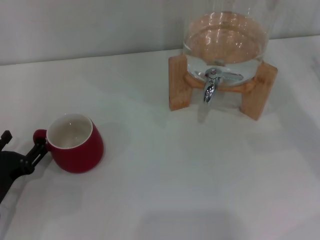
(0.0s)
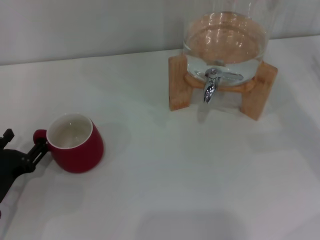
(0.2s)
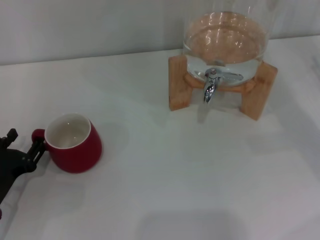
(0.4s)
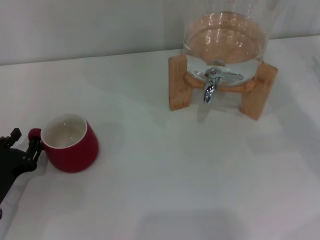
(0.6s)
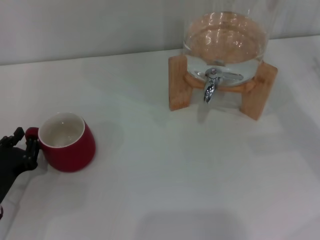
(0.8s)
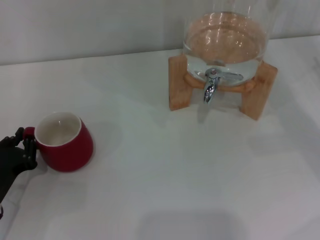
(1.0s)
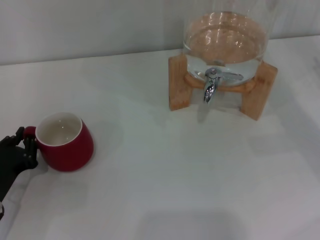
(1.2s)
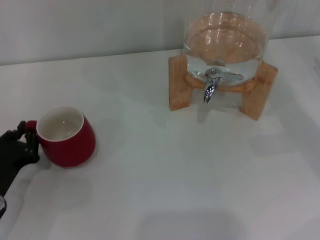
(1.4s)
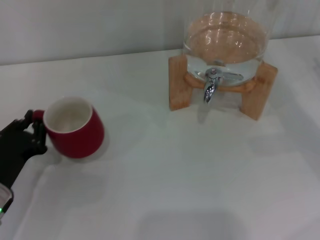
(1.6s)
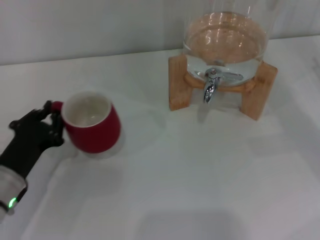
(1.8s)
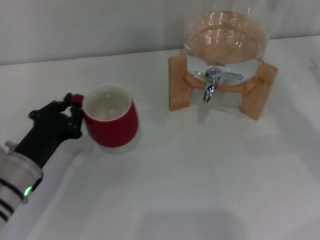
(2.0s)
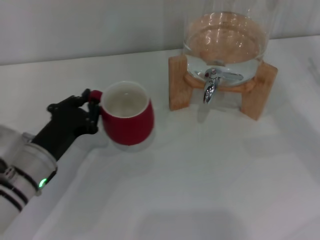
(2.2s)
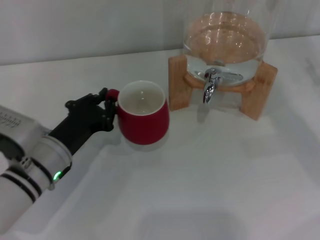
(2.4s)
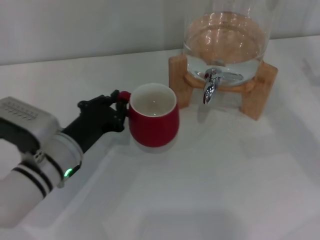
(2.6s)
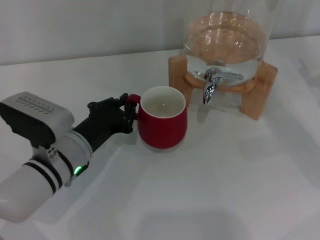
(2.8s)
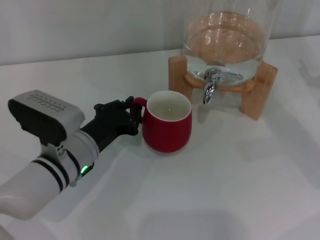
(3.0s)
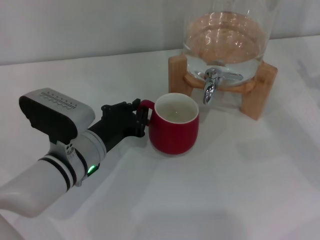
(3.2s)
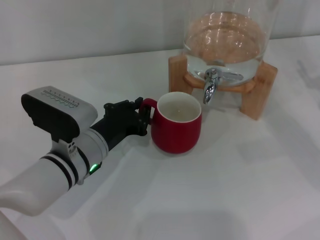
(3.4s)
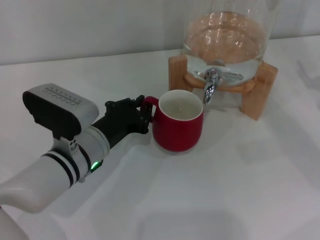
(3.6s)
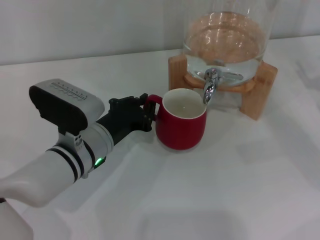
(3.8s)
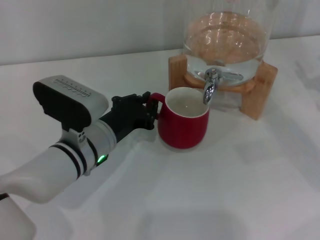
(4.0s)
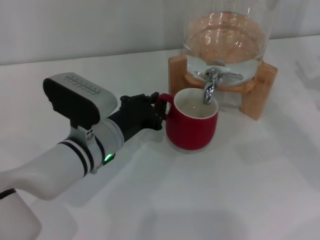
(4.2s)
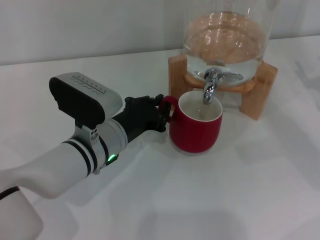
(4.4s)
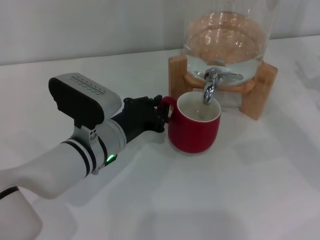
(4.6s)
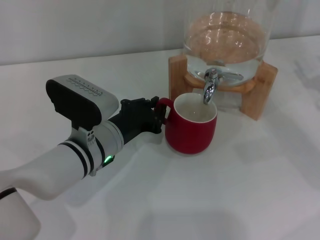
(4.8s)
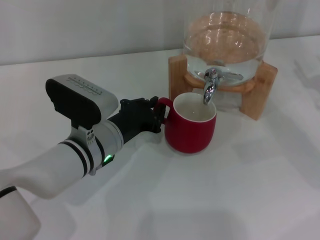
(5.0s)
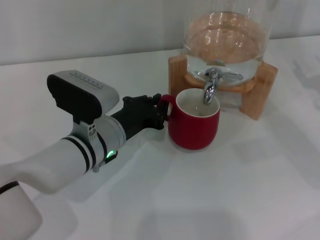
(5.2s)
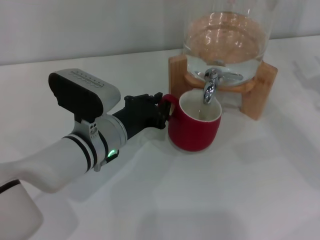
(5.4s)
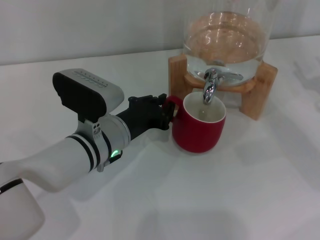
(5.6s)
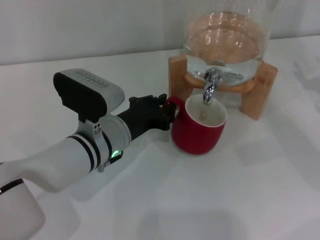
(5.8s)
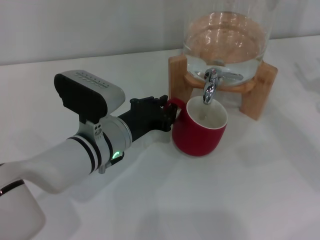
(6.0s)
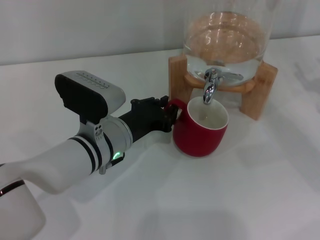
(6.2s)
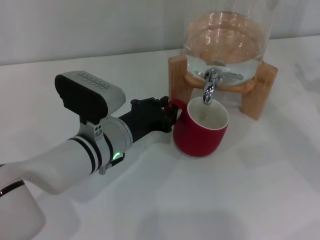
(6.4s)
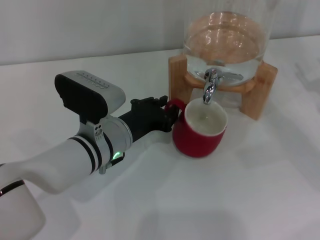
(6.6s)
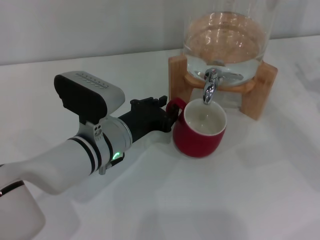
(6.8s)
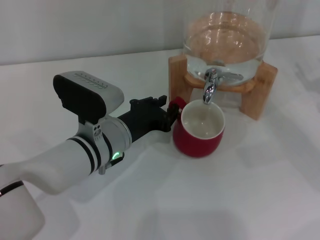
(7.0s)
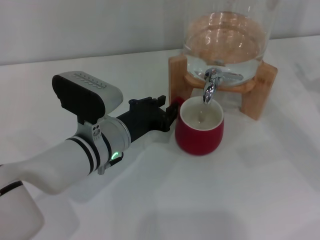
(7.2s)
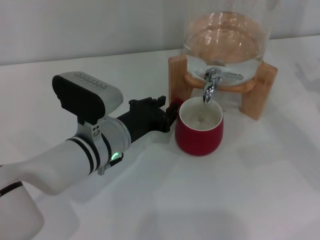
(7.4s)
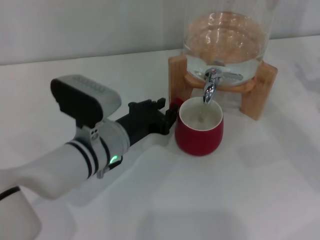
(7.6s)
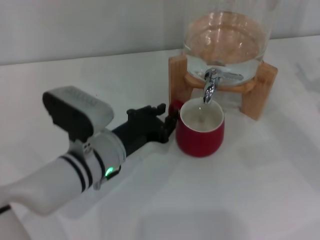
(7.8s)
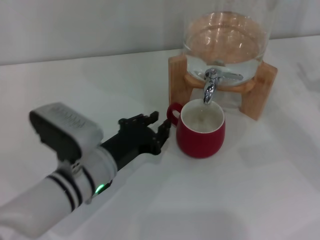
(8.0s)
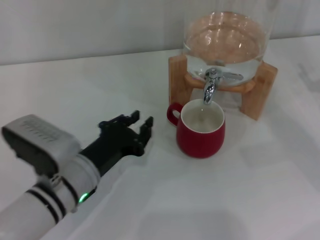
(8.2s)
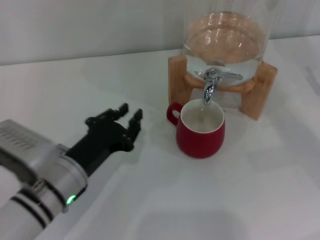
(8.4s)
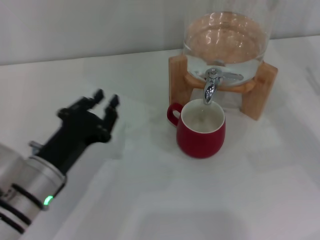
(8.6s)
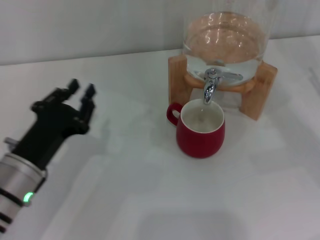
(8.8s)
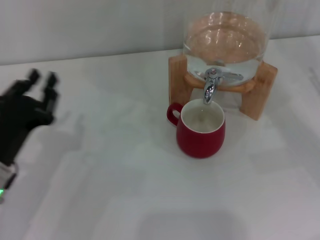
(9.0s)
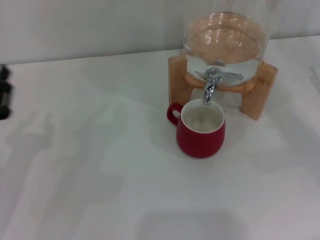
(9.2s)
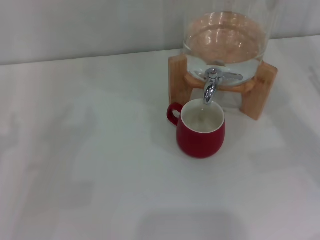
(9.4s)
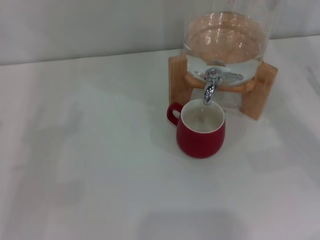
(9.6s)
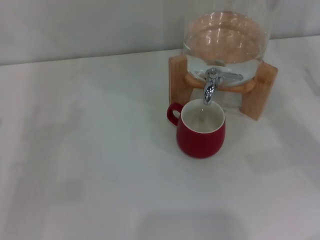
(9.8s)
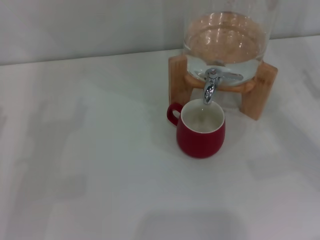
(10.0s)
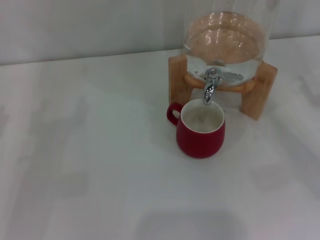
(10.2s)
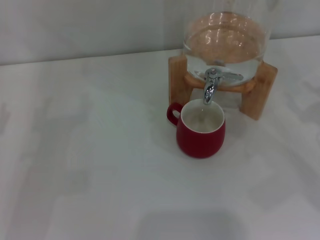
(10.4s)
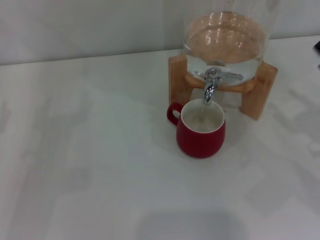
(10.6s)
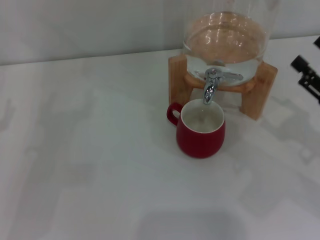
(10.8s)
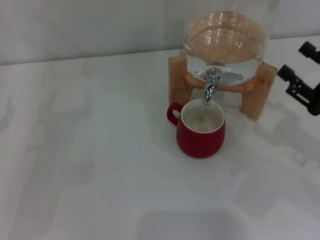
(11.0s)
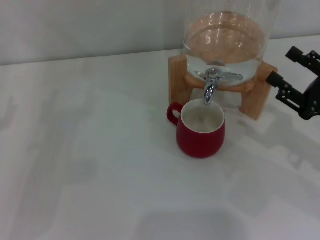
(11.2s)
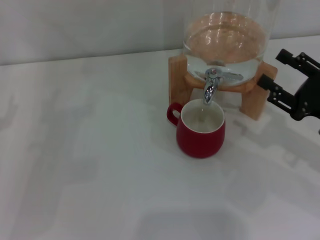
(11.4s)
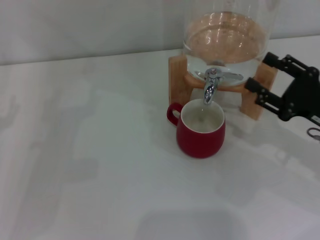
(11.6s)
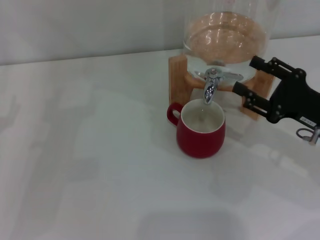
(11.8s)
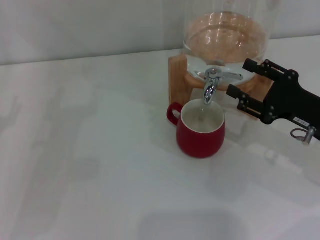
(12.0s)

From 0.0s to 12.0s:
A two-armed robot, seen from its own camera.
Task of the whole recording: the left gripper pick up the red cup and place it horizontally under the faucet, the right gripper turn on the faucet to fill the cup, and then turn off the faucet.
Step, from 0.0s to 8.0s: Move the cup beneath the water dispenser nozzle with the left gripper.
From 0.0s to 1.6s: The left gripper closes its fingers.
From 1.6s to 3.0s: The left gripper travels to the right by some 10 cm.
From 3.0s to 4.4s: The grippers make only small movements.
From 4.4s to 6.0s: Both grippers stay about where they are.
From 6.0s to 7.6s: Neither gripper changes place.
From 7.6s to 9.0s: The left gripper moves to the left and backward, roughly 15 cm.
From 9.0s to 10.4s: The left gripper shifts about 10 cm to the left, and opens up.
From 10.4s to 12.0s: The right gripper is displaced to the left by some 5 cm.

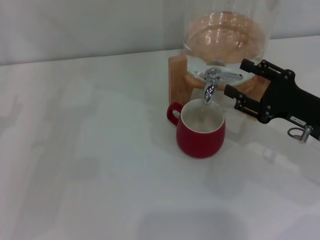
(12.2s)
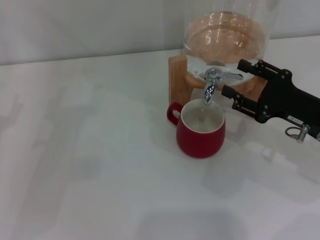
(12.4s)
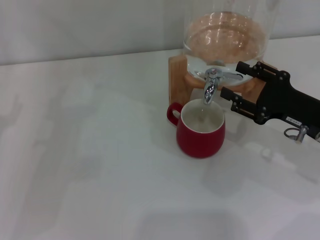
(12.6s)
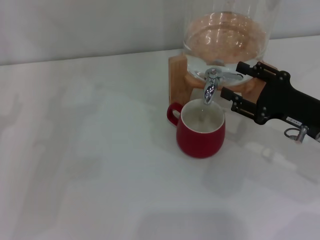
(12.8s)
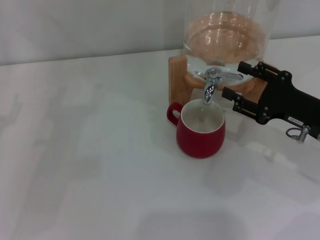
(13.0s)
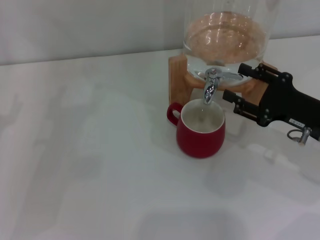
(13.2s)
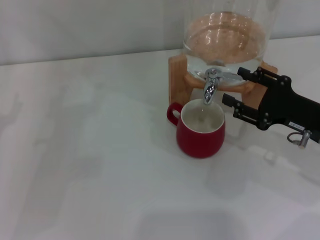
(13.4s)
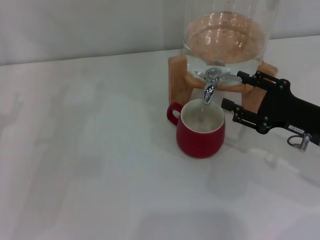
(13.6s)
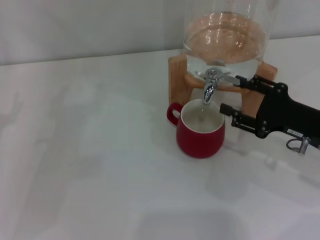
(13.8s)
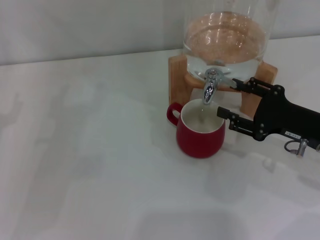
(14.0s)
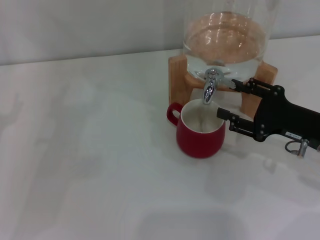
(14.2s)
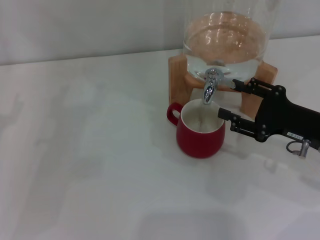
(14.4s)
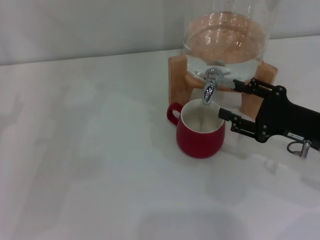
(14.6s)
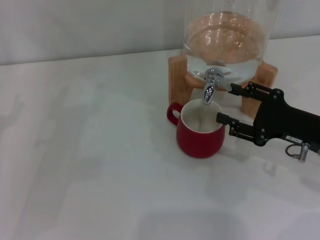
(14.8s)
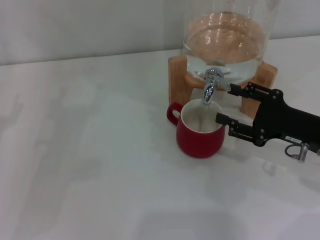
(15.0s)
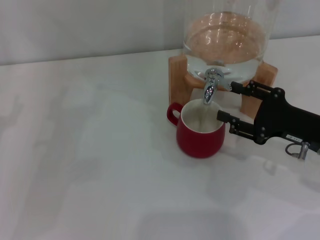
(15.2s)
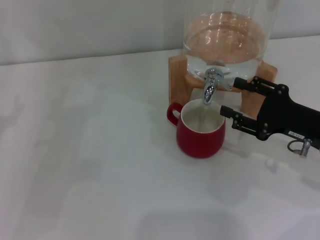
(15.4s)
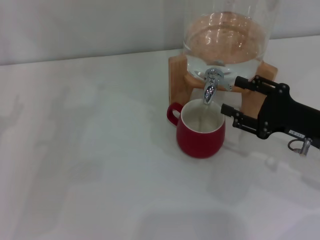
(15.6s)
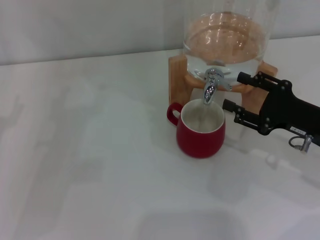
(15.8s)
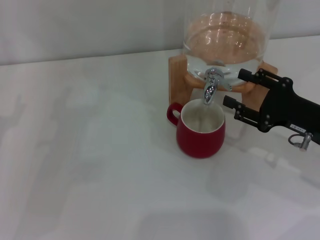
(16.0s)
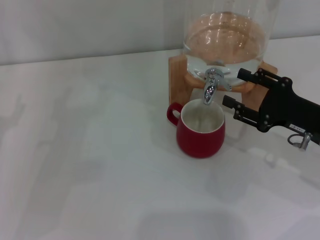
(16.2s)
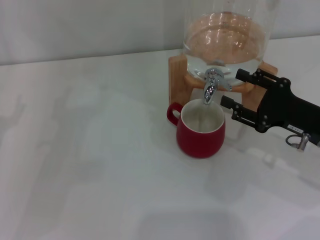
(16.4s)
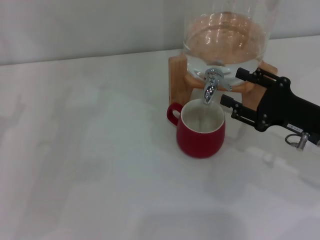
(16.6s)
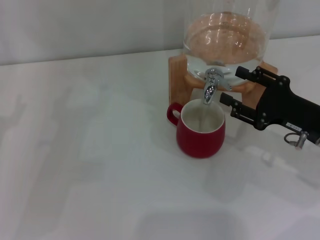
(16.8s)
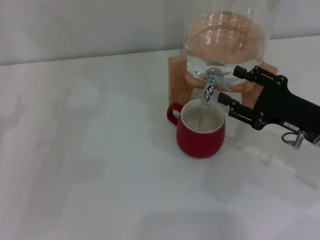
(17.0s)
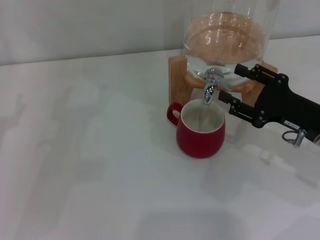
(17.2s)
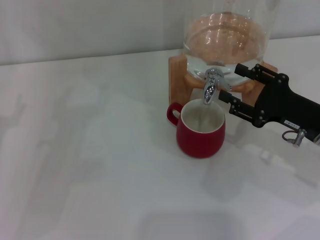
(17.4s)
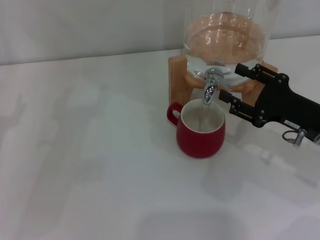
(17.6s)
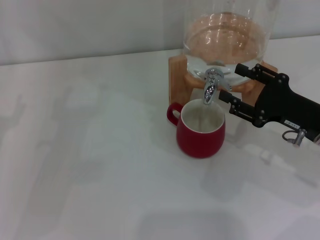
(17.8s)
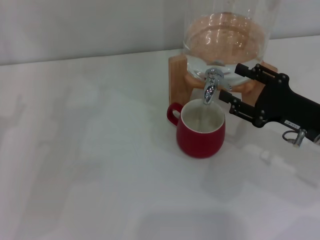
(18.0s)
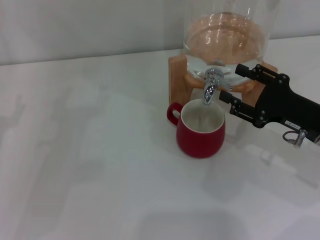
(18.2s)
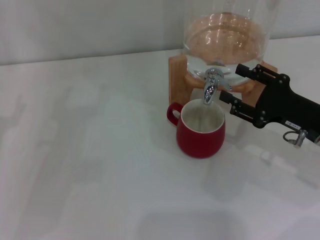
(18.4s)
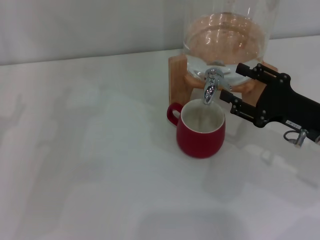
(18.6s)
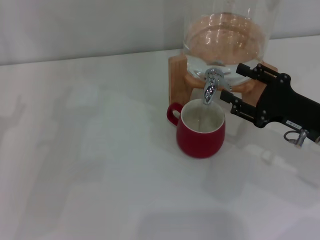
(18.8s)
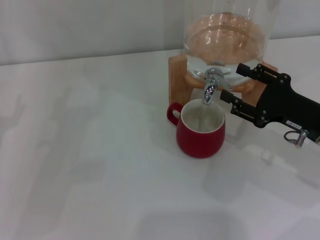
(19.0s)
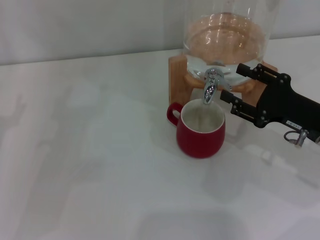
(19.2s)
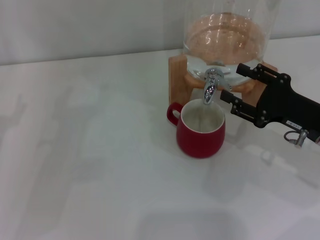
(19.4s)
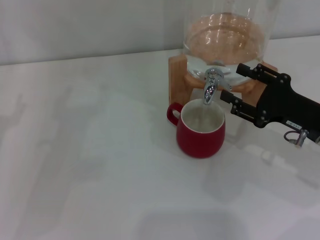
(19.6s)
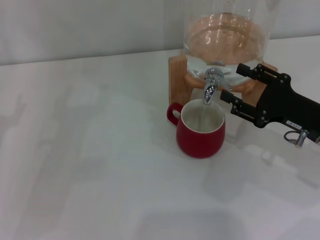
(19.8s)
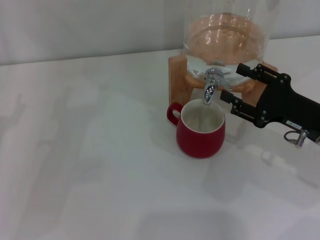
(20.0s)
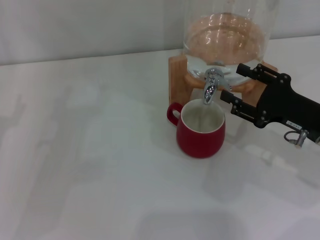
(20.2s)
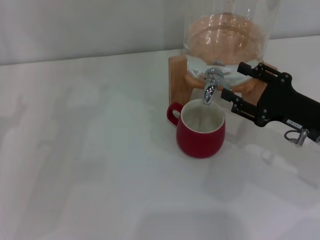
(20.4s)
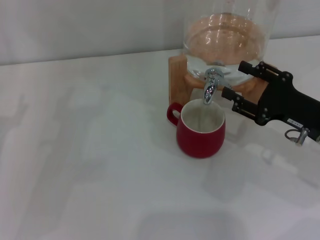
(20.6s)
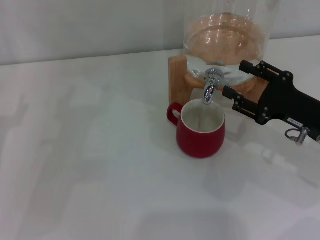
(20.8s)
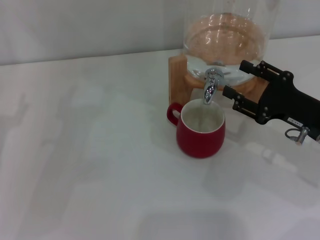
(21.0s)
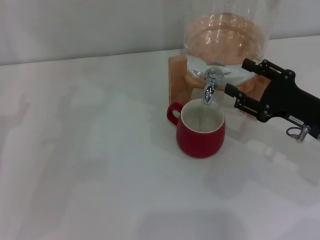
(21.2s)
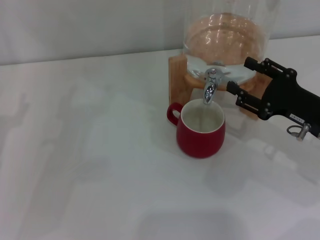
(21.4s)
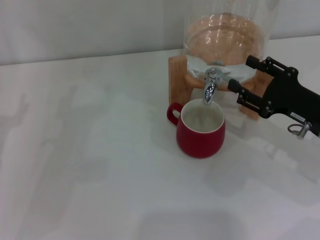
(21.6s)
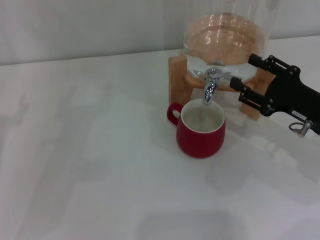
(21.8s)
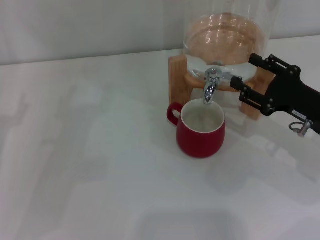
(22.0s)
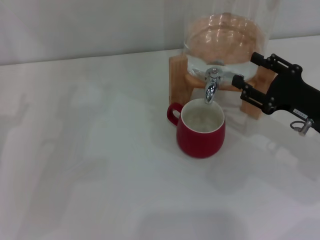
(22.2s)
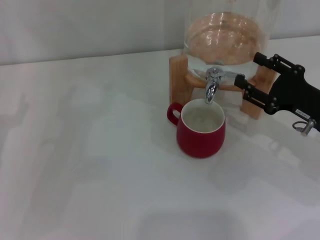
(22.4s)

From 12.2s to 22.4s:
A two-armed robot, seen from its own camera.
Task of the whole recording: the left gripper pick up the red cup and place it horizontally under the faucet, the right gripper turn on the faucet to fill the cup, and then turn off the faucet.
Step, from 12.2s to 15.4s: Open the dispenser valve and fill the cup with water with the right gripper.
From 12.2s to 13.6s: Both grippers stay put.
From 13.6s to 15.2s: Both grippers stay put.
From 15.2s to 16.6s: The grippers make only small movements.
From 16.6s to 21.0s: The two grippers keep their place.
From 21.0s to 22.4s: The grippers make only small movements.
